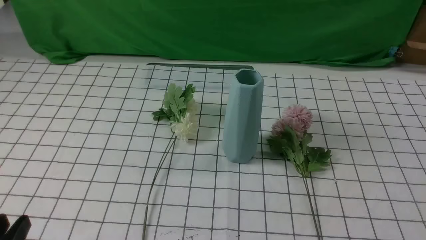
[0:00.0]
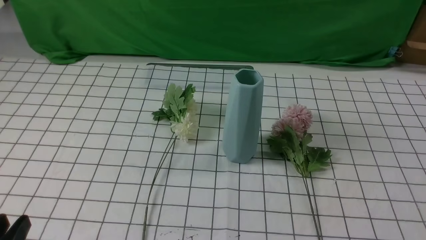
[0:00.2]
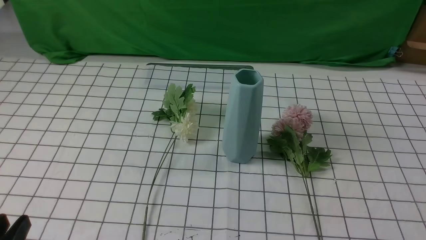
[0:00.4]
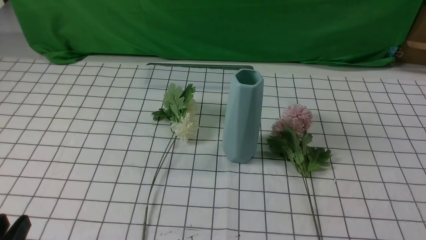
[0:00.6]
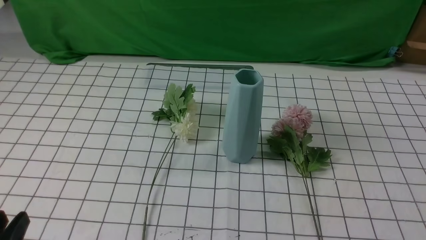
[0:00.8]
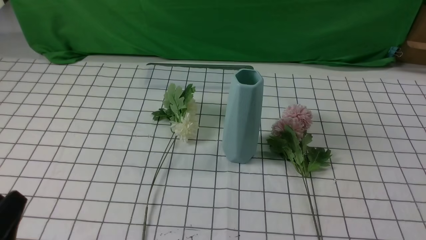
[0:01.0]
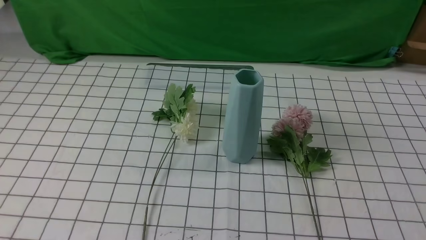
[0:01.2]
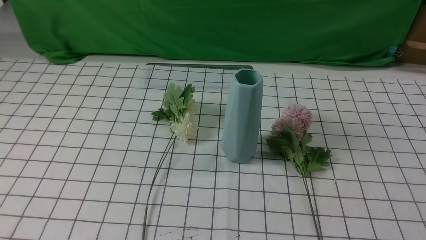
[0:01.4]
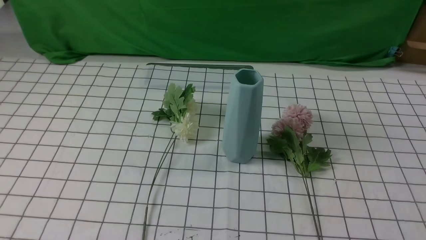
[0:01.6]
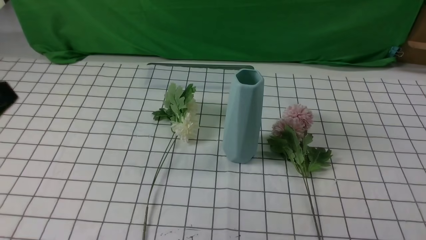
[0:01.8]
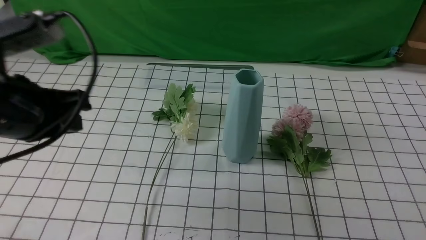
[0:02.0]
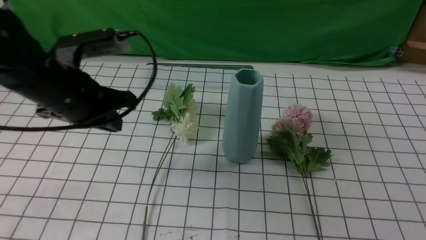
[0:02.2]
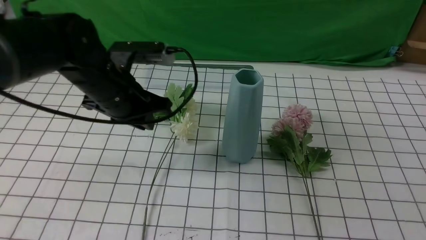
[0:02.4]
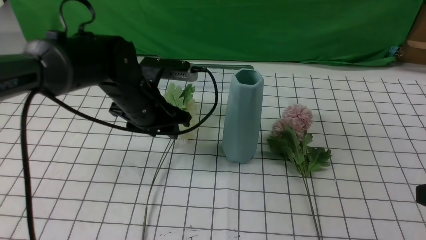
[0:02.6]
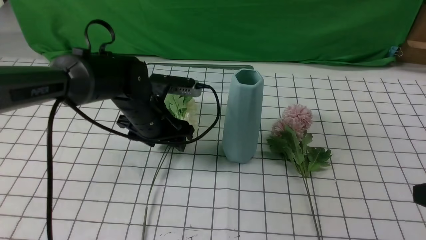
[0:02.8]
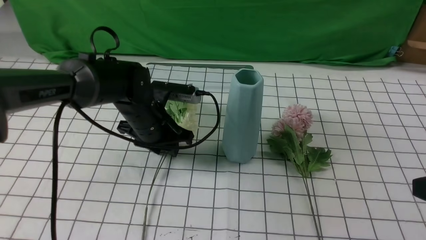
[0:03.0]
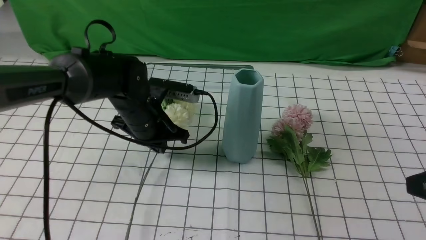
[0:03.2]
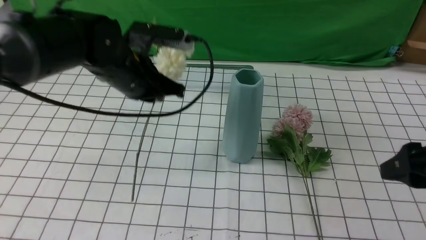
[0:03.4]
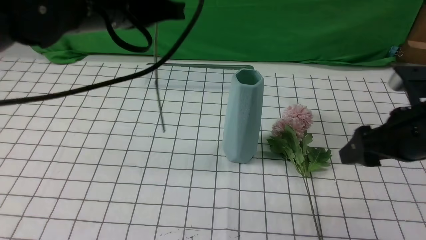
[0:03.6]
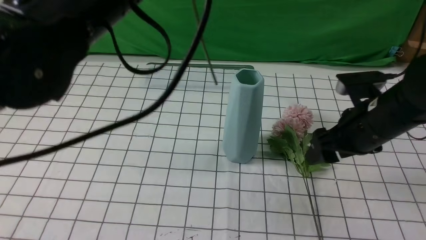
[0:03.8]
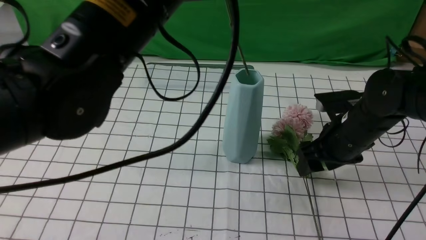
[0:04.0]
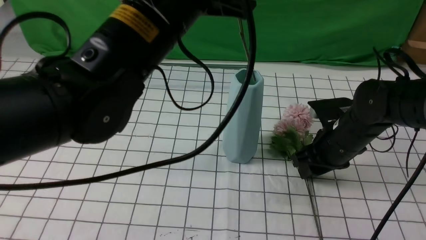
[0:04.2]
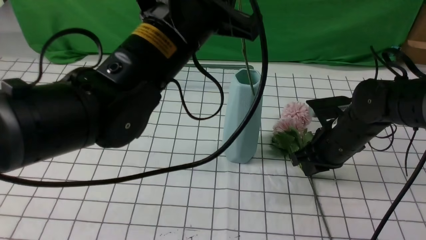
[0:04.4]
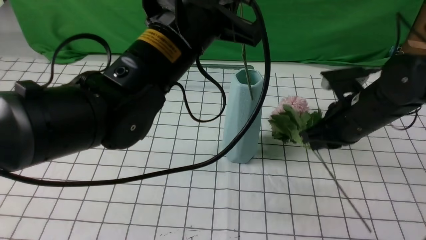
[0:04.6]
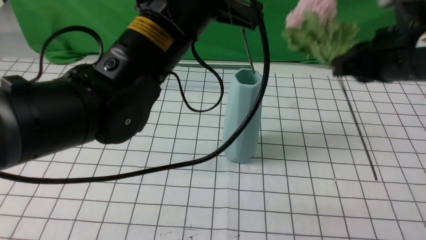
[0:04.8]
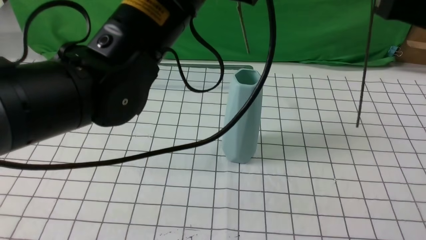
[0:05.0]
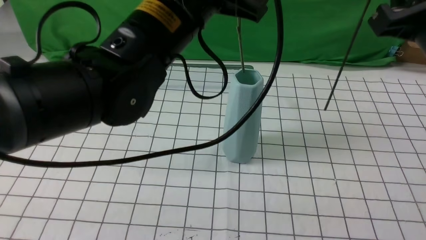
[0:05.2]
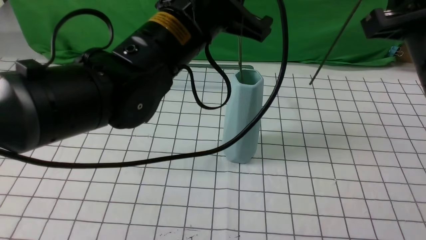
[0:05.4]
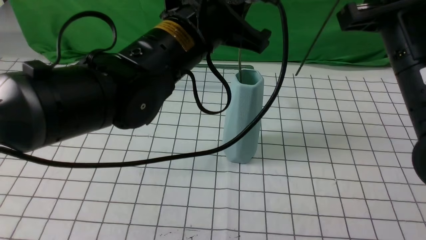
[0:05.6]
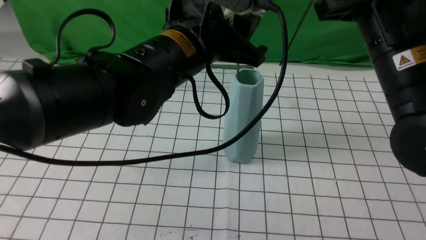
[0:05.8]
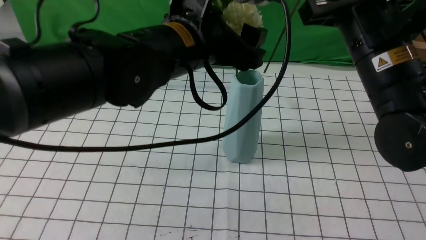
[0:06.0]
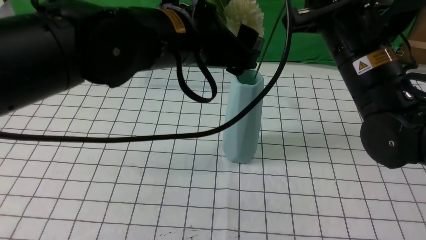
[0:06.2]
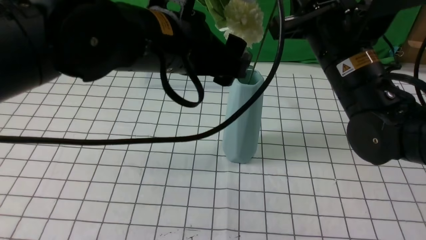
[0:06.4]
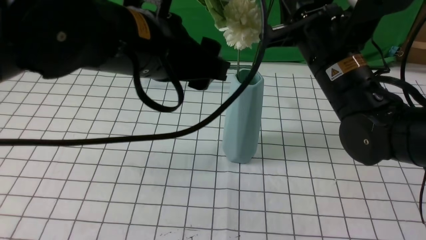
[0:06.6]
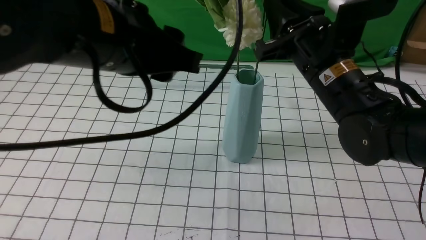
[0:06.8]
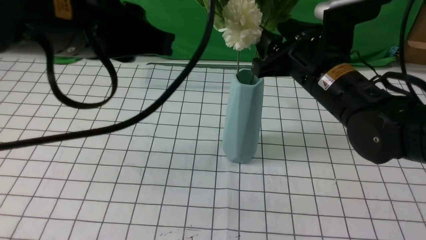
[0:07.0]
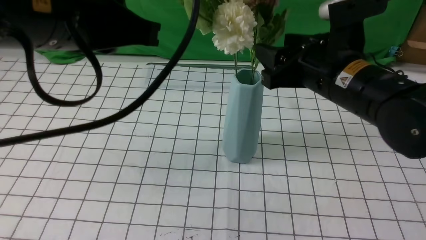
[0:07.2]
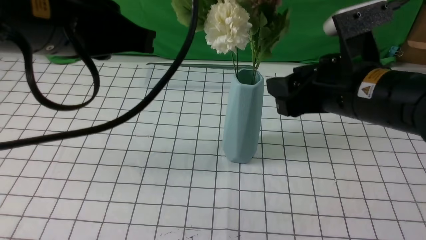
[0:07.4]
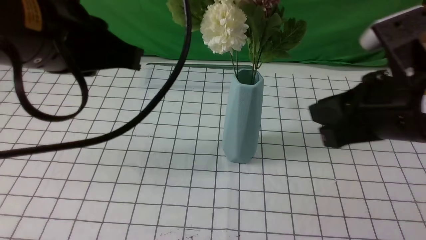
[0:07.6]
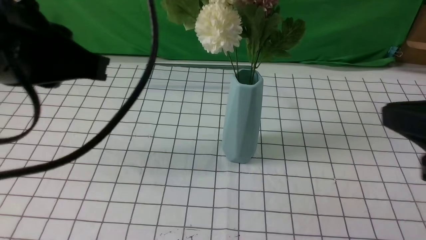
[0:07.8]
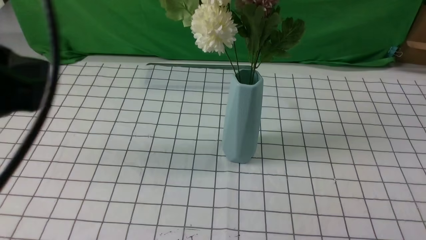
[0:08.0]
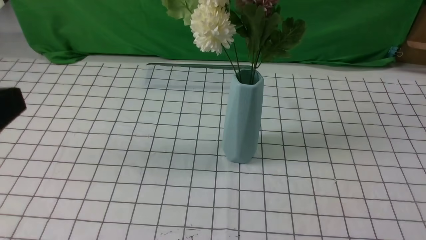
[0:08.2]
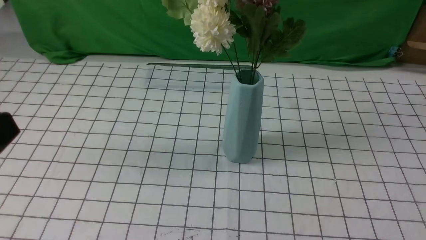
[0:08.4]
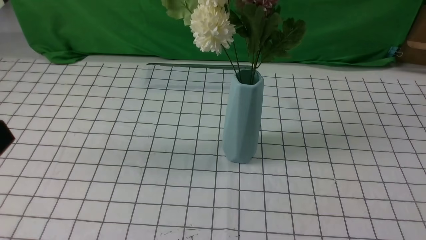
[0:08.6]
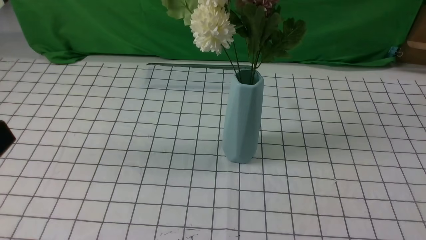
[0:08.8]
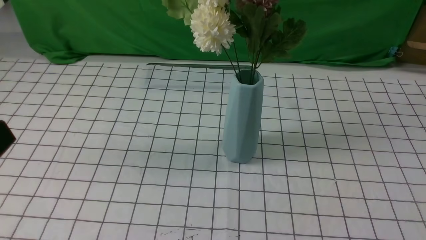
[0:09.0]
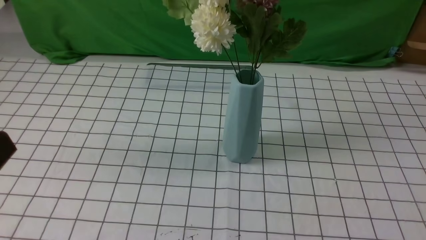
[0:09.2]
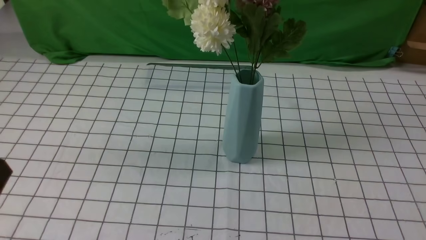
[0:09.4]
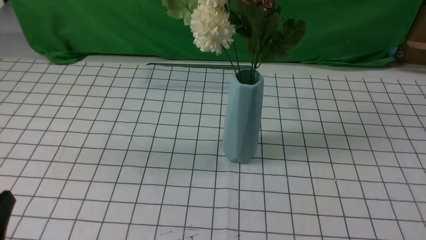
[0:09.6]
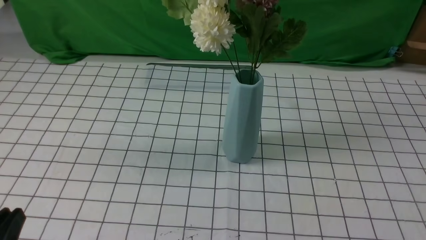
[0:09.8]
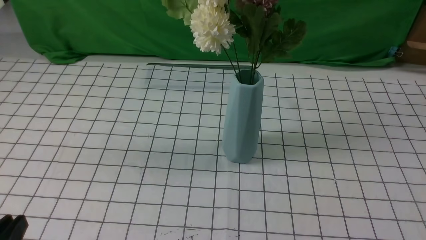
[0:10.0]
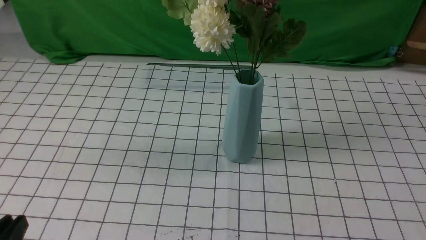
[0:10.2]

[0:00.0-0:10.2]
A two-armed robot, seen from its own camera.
Task of the whole recording: insert the flowers into the vase on the table with the white tablecloth.
Step, 0:00.0 to 0:07.4: Put the flowers in the vase with both hands.
0:00.0 to 0:01.4: The left gripper travels upward by some 10 cm.
0:01.4 to 0:03.0: The left gripper moves forward and to the right, about 35 cm. Meanwhile the right gripper goes roughly 15 cm forward and upward, and opens its fingers.
0:03.0 to 0:04.4: The left gripper heads upward and backward, covering about 20 cm, and closes; the right gripper moves forward, downward and to the left, approximately 25 cm, and closes.
0:04.4 to 0:05.8: The right gripper is displaced upward by approximately 15 cm; the left gripper opens its fingers.
0:05.8 to 0:07.2: The right gripper moves about 5 cm, and opens up. The left gripper is displaced backward, to the left and upward by roughly 15 cm, and closes its fingers.
0:07.2 to 0:08.8: The right gripper goes some 30 cm backward and to the right, and closes. Meanwhile the left gripper moves backward, to the left and downward, approximately 20 cm.
0:08.8 to 0:10.2: The left gripper moves downward, roughly 15 cm.

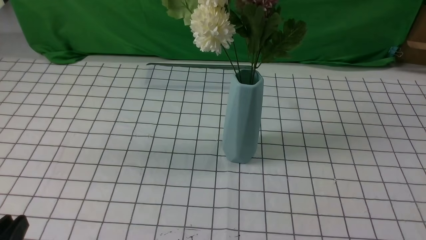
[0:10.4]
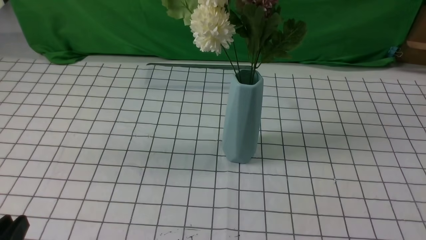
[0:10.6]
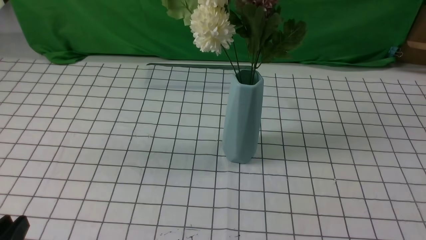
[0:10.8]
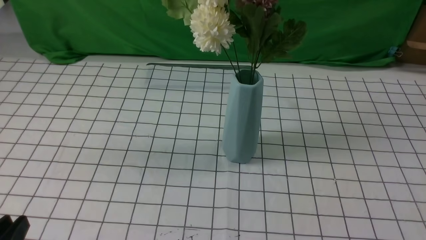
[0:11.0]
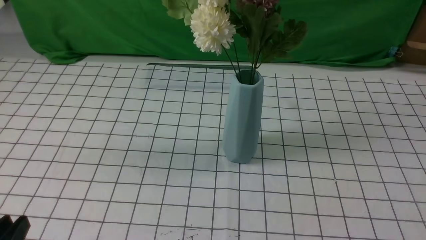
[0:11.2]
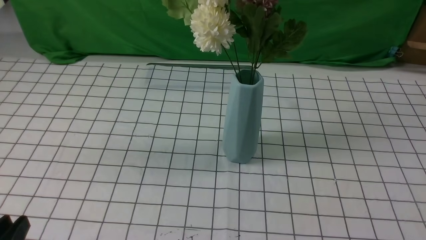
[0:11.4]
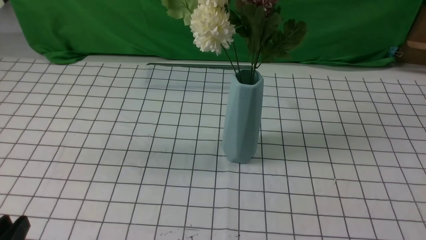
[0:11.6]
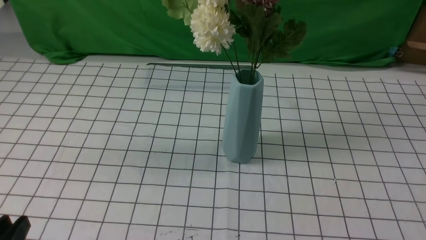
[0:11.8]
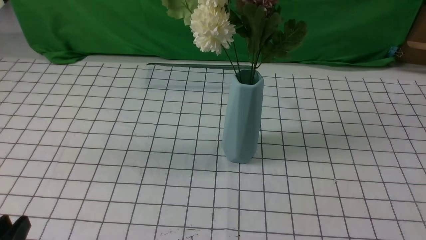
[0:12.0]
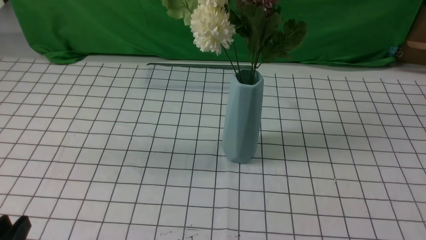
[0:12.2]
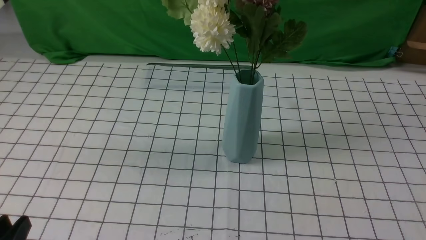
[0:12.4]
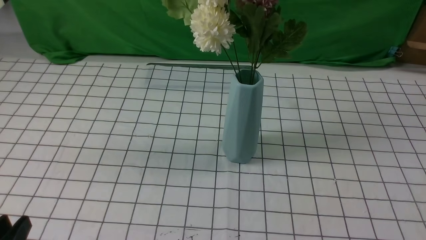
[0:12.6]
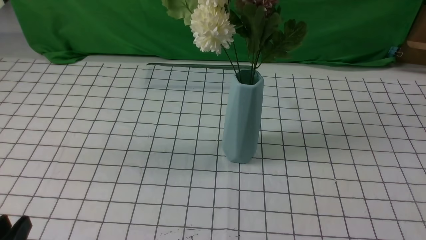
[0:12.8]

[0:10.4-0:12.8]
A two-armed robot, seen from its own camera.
Task of the whole recording: insert the flowers into the vase on the table with the white tablecloth.
0:11.6 to 0:12.8: The two grippers keep their place.
